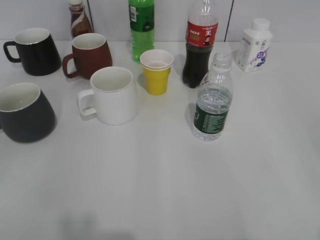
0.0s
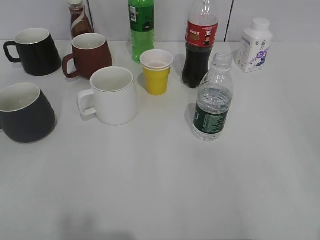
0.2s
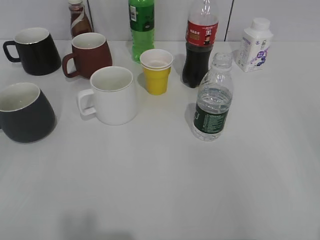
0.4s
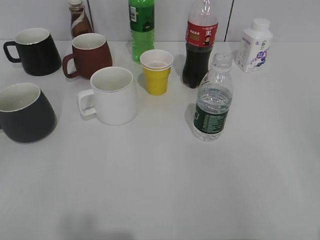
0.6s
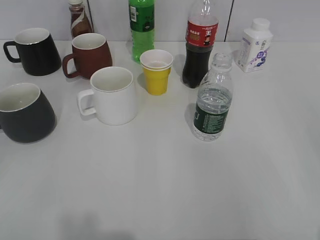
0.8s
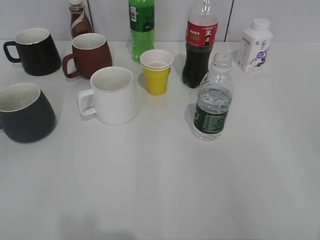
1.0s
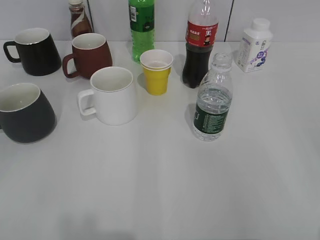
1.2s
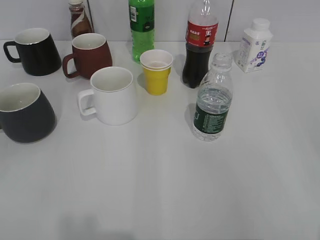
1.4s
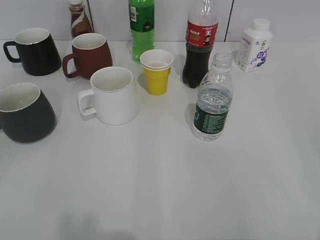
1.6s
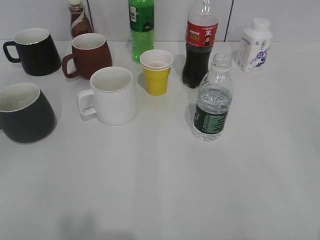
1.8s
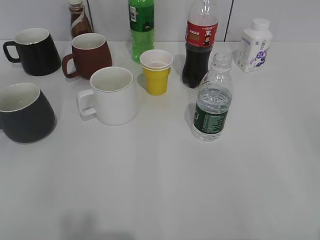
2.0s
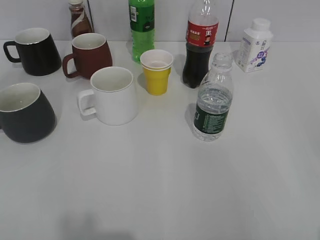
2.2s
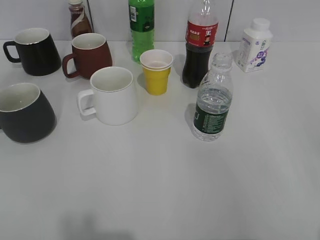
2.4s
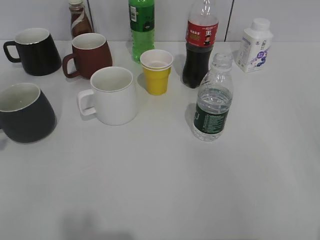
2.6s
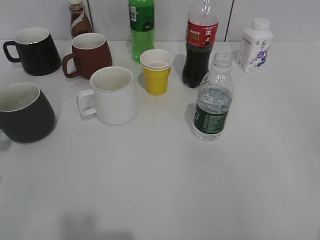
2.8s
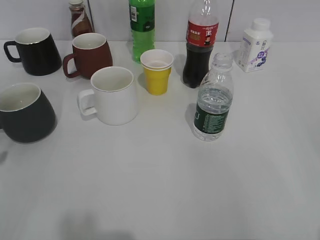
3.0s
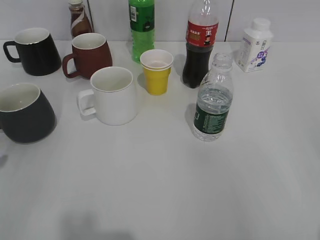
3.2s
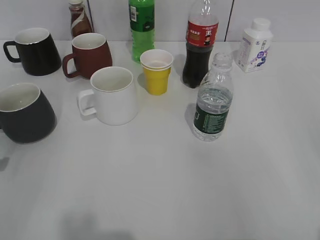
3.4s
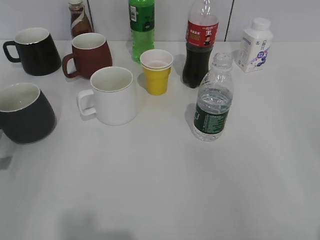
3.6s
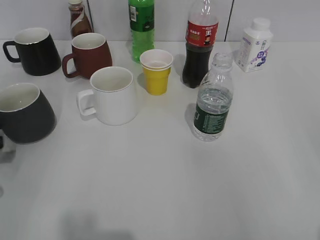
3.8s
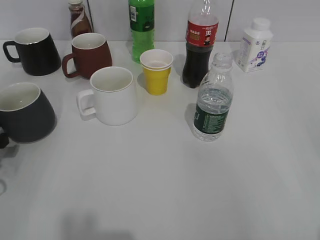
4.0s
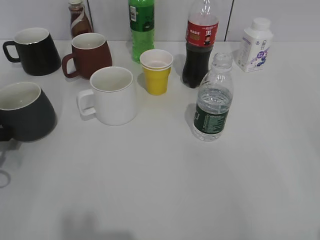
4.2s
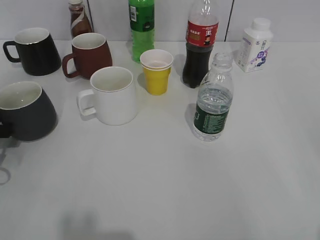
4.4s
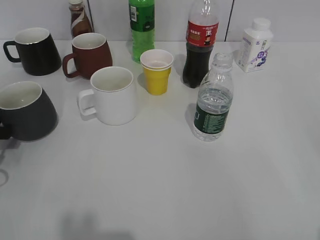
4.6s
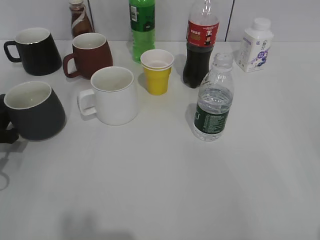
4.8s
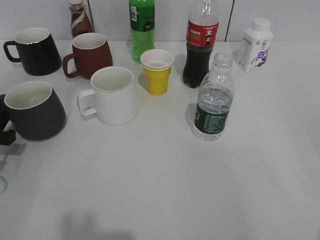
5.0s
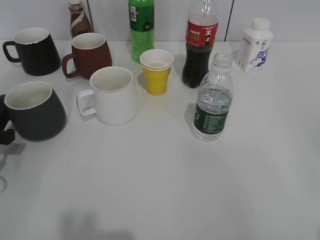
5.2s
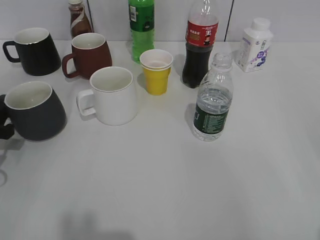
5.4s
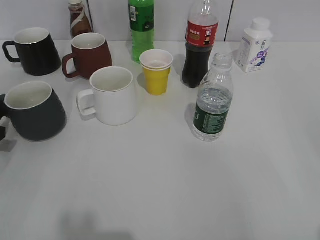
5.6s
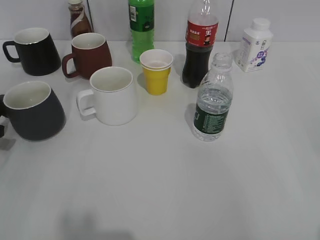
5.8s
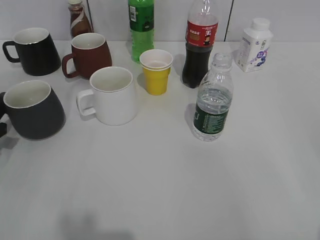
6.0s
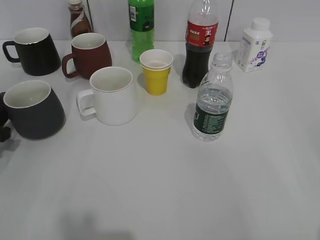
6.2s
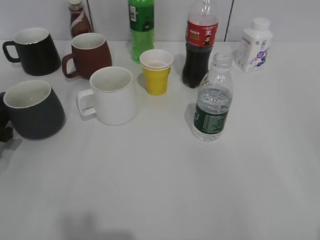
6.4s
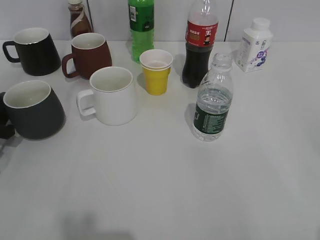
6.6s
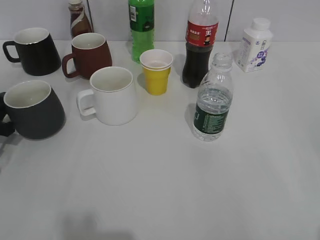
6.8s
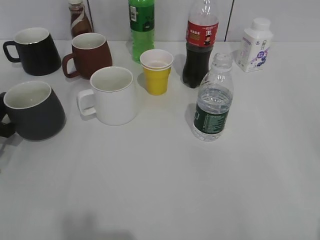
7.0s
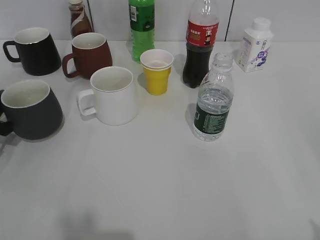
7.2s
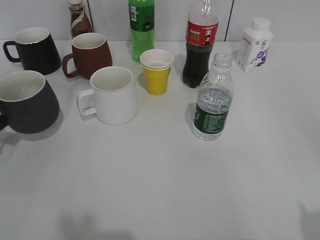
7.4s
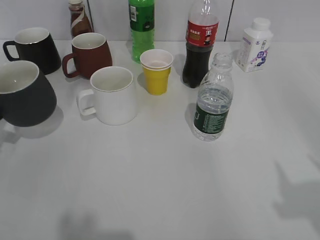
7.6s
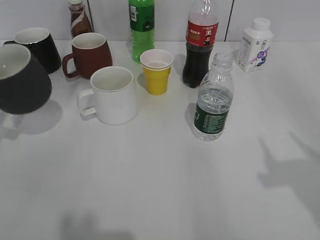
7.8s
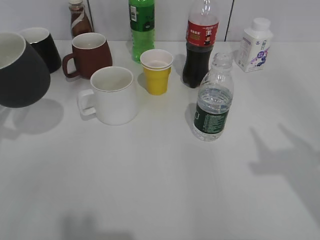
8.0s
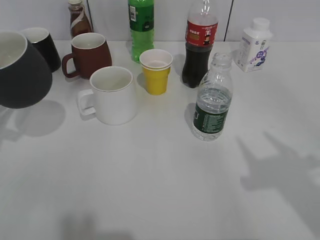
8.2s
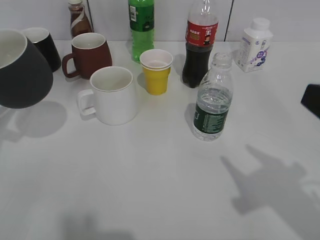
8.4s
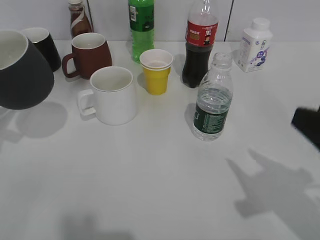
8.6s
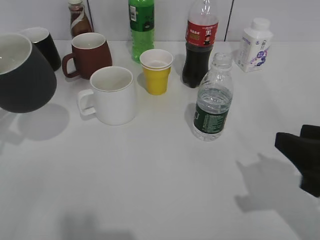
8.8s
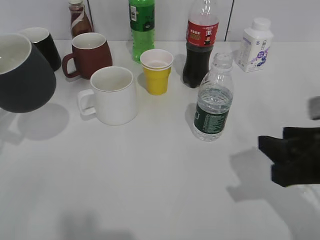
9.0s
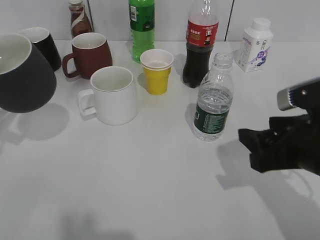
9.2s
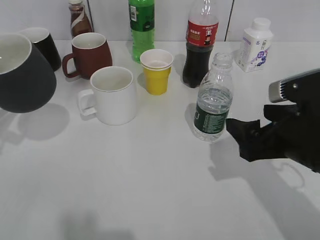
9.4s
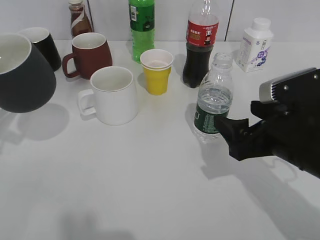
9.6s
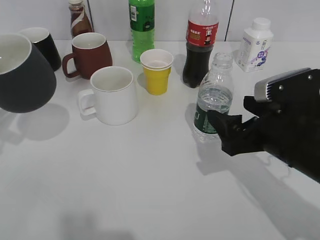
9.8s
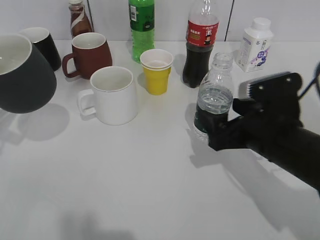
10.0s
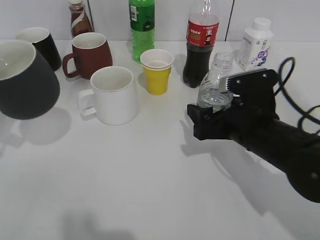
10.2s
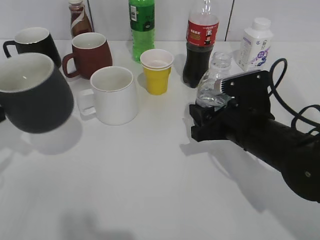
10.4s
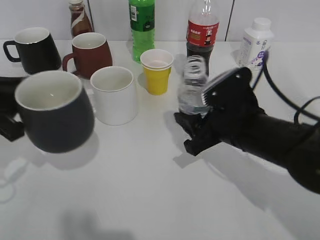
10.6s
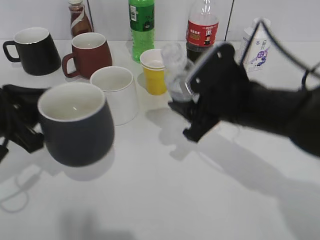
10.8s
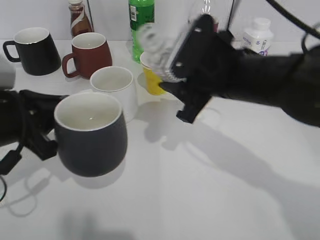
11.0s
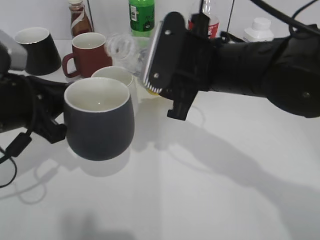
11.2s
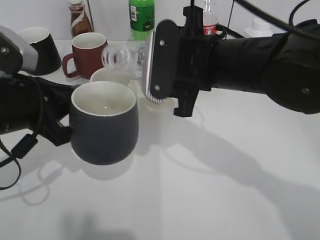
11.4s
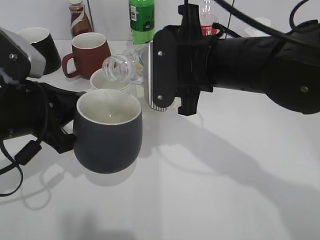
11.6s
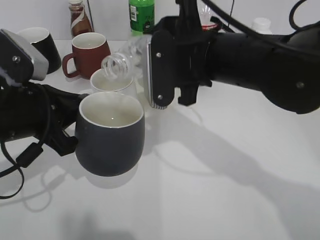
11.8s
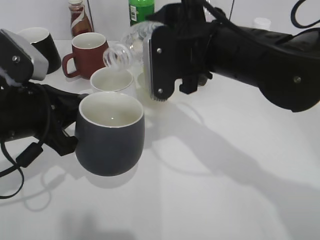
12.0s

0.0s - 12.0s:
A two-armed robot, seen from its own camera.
Step, 1.8s - 6.8s: Grasp the black cup with left gripper.
Step, 7.2s - 8.0s: Lift the black cup with left gripper.
Step, 8.2s - 10.2s: Grasp the bottle with water with right gripper.
3.0s - 4.4s: The left gripper travels forward and downward by some 10 cm.
4.4s - 6.0s: The grippers move only a little.
6.0s - 7.6s: The left gripper closes its fingers.
7.6s - 9.0s: The right gripper shifts roughly 15 cm downward, forward and to the left, and closes. The left gripper heads upward, covering about 5 cm.
9.0s - 10.4s: The right gripper travels forward, to the left and downward by roughly 15 cm, and opens and closes again.
10.4s - 12.0s: The left gripper travels to the right by roughly 10 cm. The right gripper moves upward and to the left, about 15 cm.

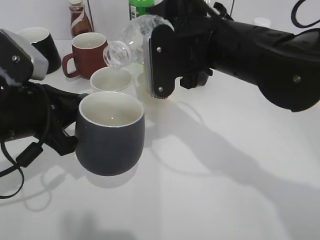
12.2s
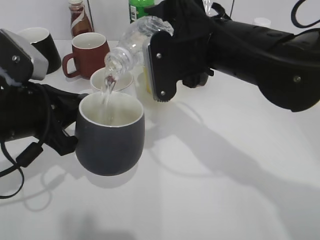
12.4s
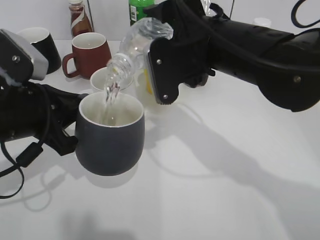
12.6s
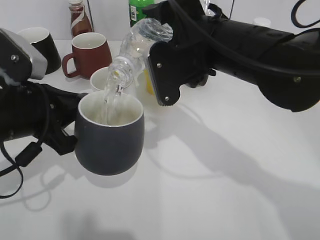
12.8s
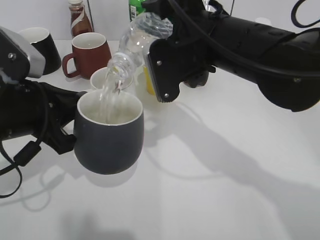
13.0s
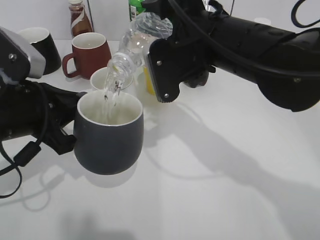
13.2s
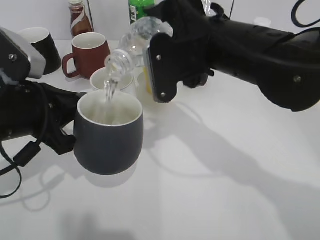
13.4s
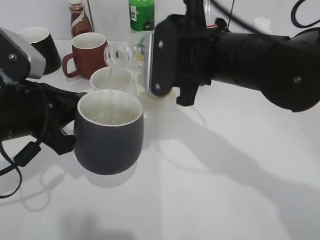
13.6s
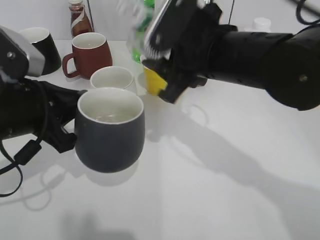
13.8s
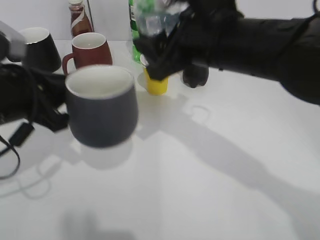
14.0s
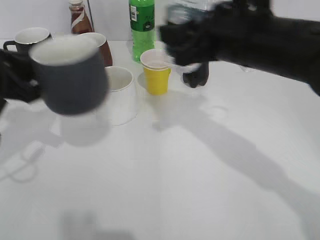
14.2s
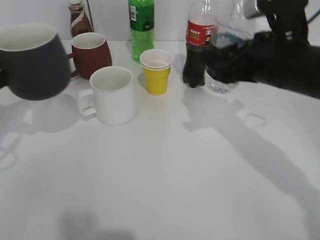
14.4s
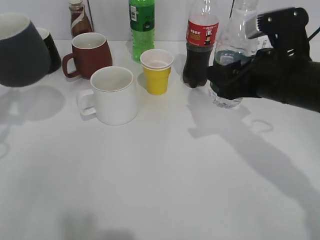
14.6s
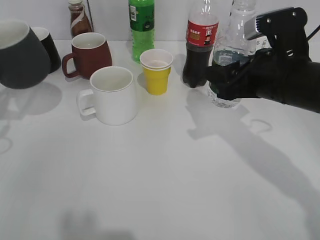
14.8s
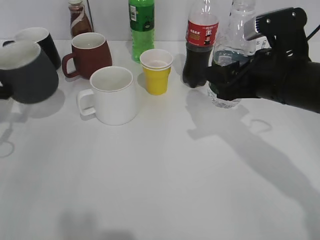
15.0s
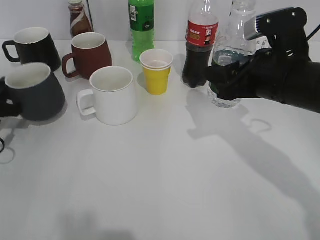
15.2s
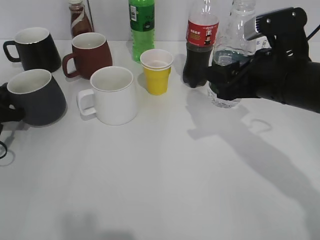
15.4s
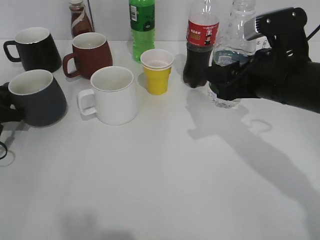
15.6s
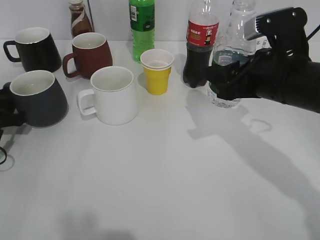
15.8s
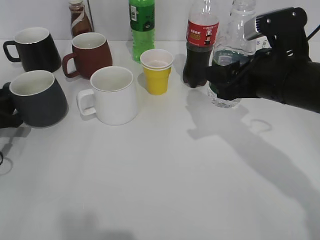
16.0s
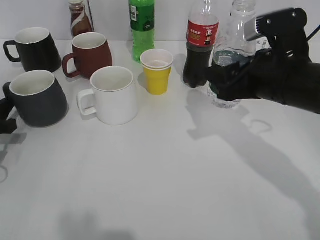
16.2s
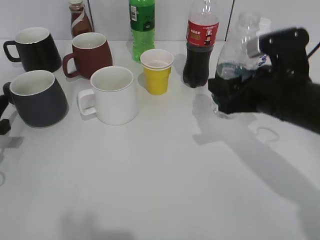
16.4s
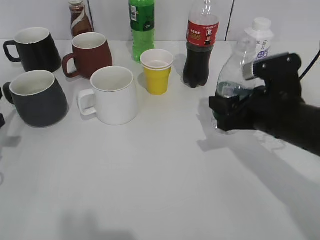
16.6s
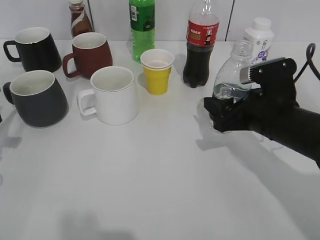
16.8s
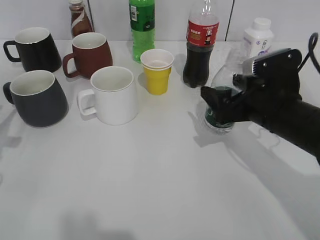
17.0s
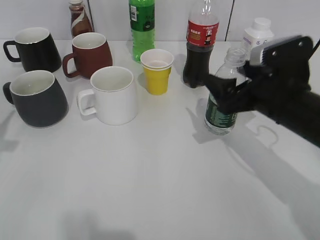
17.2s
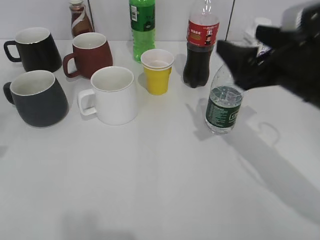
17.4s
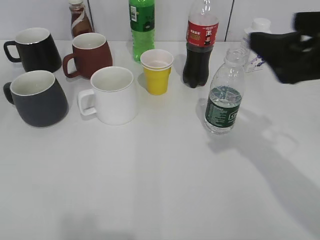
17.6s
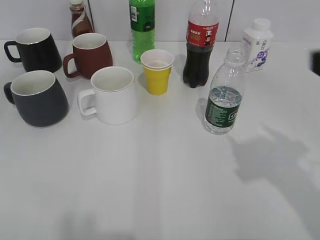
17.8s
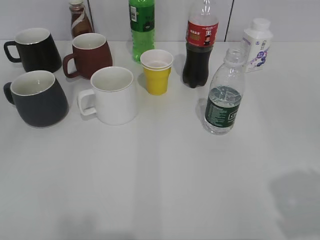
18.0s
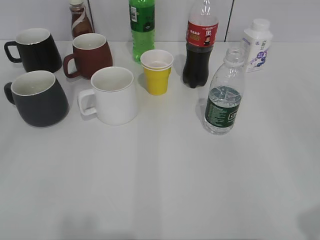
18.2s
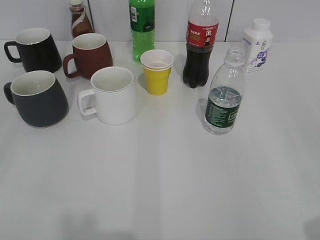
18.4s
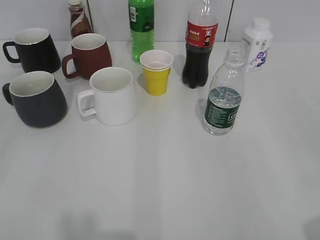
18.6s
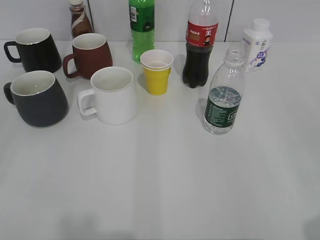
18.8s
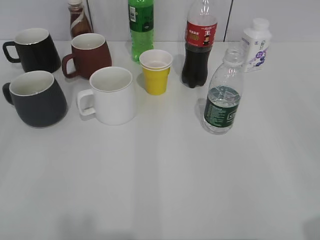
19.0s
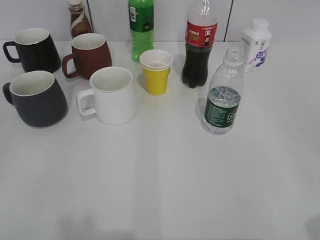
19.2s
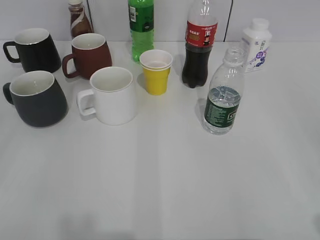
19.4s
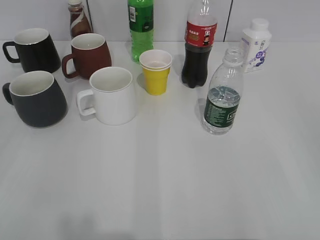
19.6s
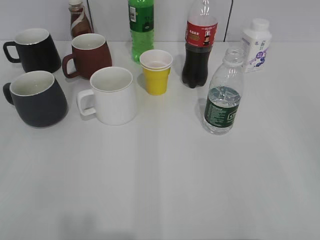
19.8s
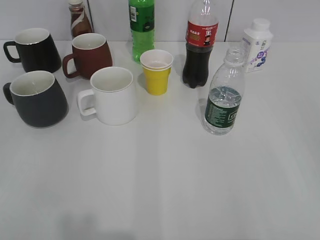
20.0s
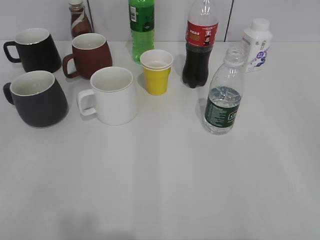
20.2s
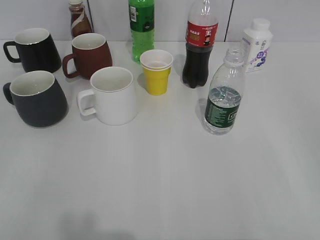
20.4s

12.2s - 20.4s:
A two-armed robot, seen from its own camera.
Step, 14.2s - 16.4s: Place the black cup on the table with left gripper.
Step, 16.6s - 17.0s: Place the water bottle on the table with right gripper.
13.8s - 15.4s: The left gripper moves to the left, downward and forward, some 20 cm. The right gripper heads to the right, covering approximately 10 cm.
15.4s - 17.2s: The right gripper opens its fingers; the left gripper goes about 10 cm backward and upward, and opens its fingers.
17.2s - 18.8s: The right gripper moves backward, to the right and upward, roughly 30 cm, while the left gripper heads backward, covering about 20 cm, and opens.

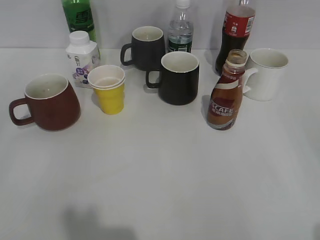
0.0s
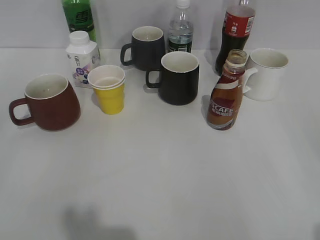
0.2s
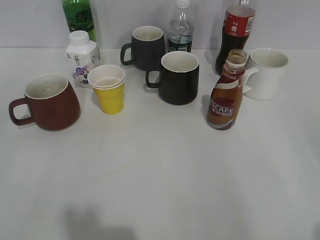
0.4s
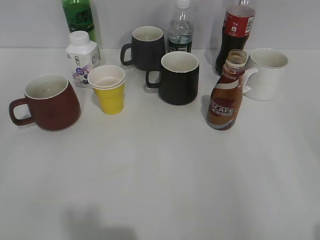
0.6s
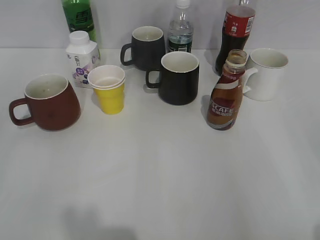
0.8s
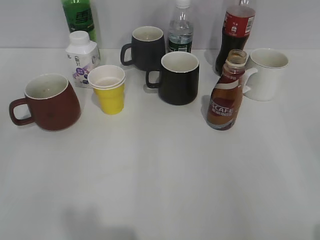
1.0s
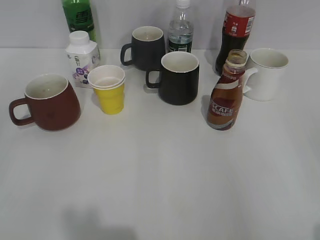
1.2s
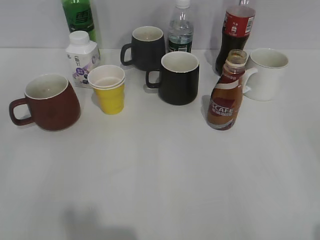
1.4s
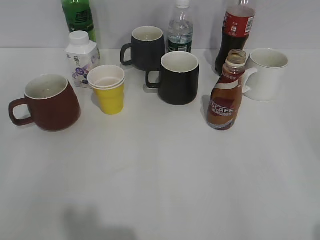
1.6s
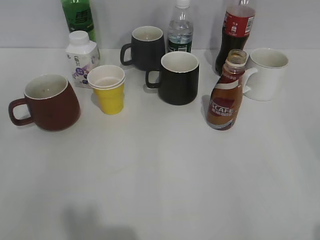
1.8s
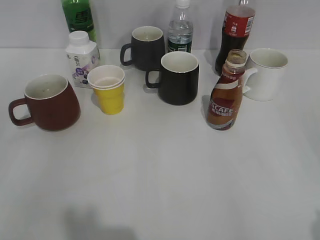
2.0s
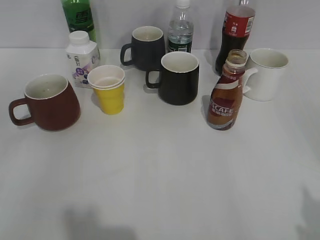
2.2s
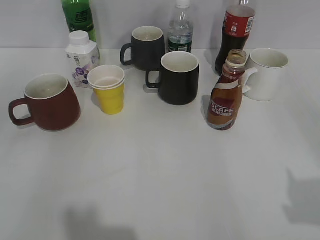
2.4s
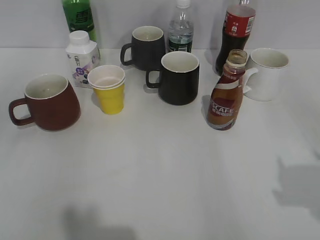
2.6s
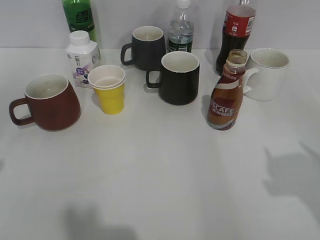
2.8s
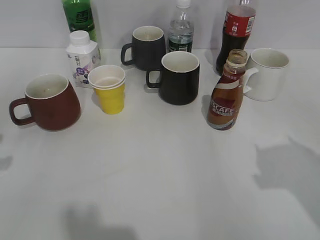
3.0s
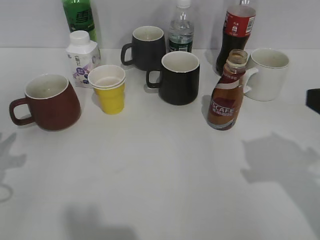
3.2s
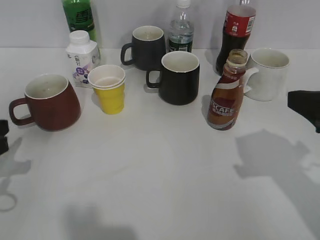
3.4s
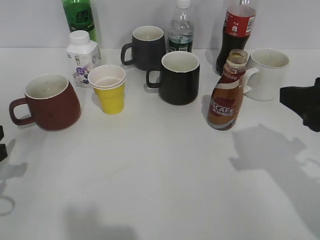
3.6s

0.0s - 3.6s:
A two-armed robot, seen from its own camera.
1.8s - 3.6s: The right gripper heads forward, covering roughly 20 cm, and closes up, while the left gripper moves forward and downward, approximately 20 cm.
